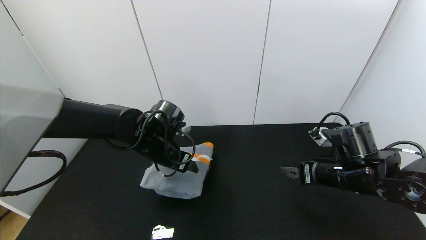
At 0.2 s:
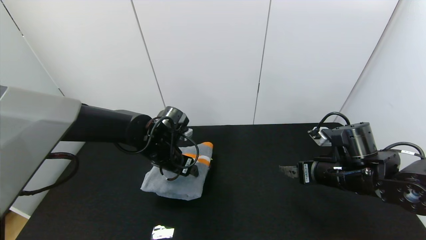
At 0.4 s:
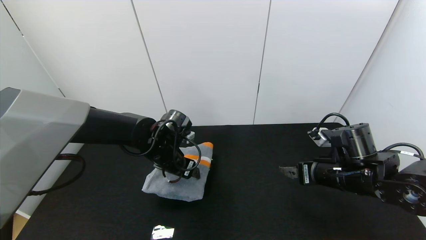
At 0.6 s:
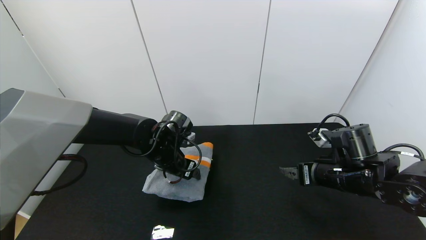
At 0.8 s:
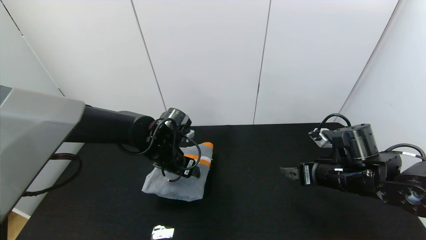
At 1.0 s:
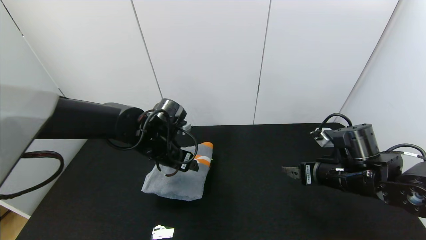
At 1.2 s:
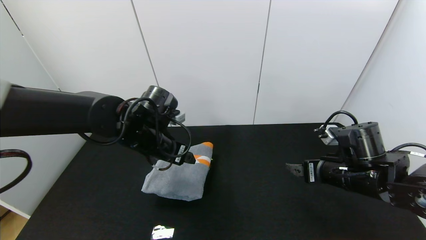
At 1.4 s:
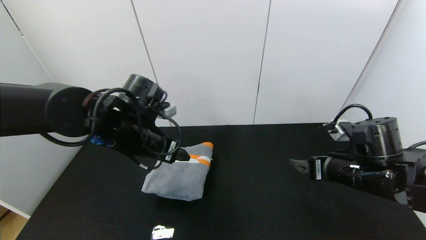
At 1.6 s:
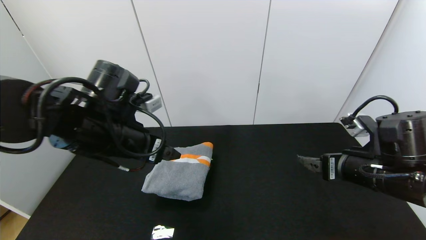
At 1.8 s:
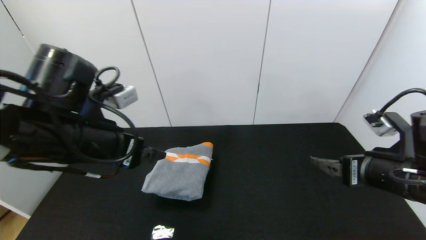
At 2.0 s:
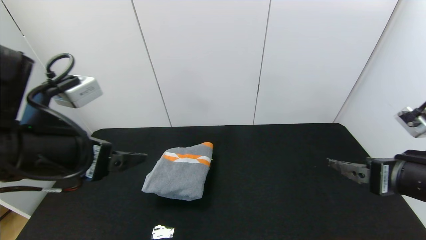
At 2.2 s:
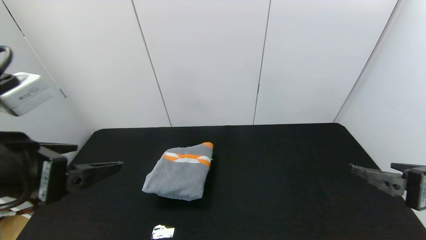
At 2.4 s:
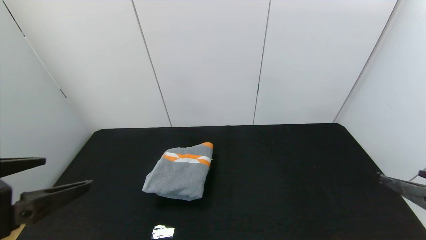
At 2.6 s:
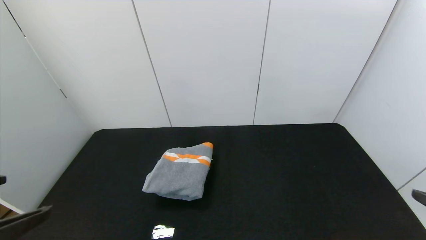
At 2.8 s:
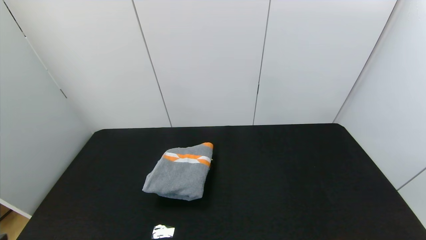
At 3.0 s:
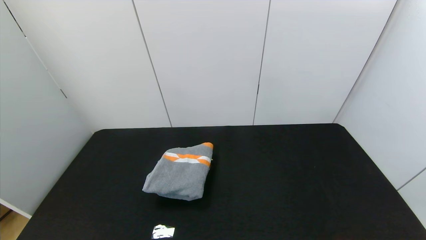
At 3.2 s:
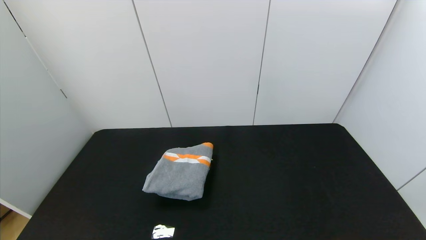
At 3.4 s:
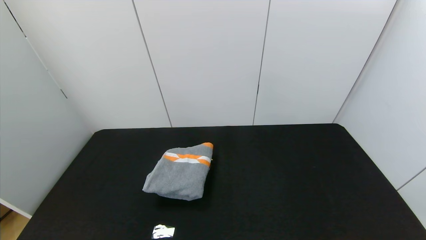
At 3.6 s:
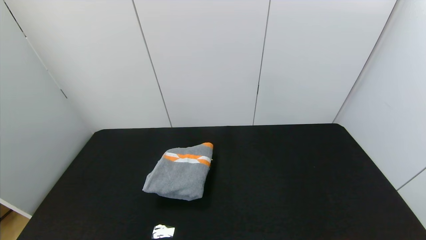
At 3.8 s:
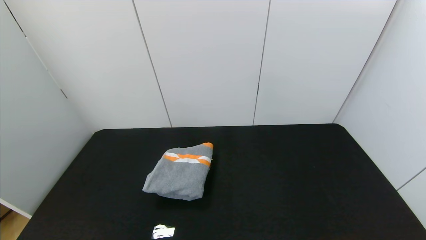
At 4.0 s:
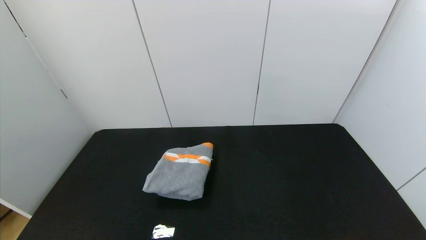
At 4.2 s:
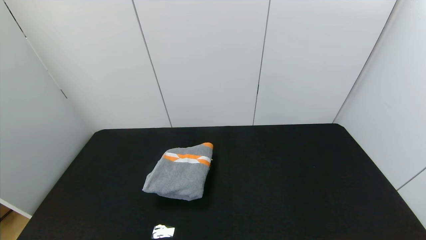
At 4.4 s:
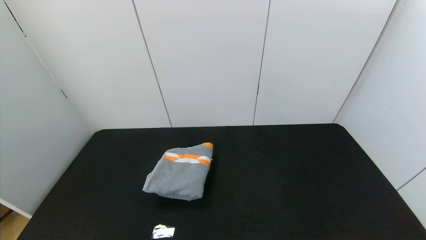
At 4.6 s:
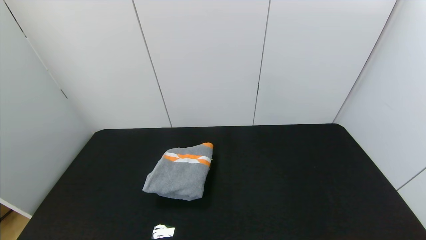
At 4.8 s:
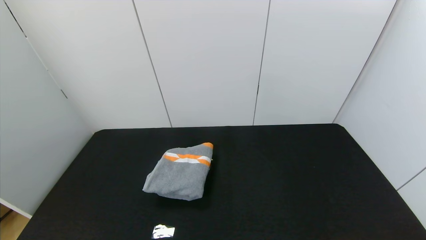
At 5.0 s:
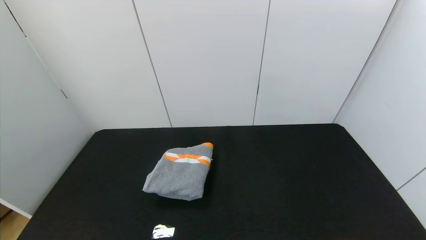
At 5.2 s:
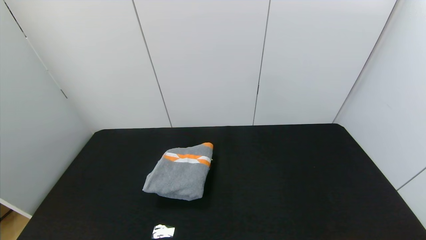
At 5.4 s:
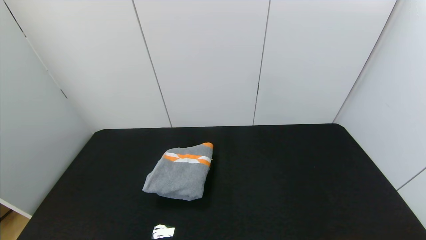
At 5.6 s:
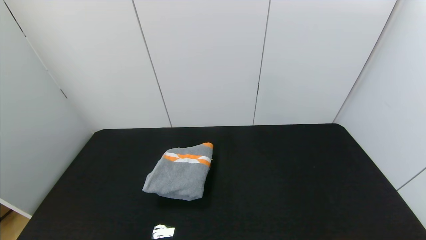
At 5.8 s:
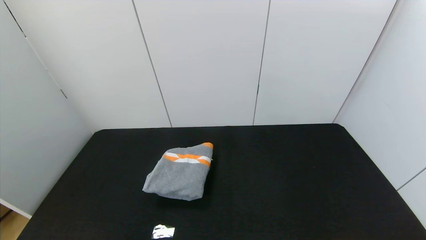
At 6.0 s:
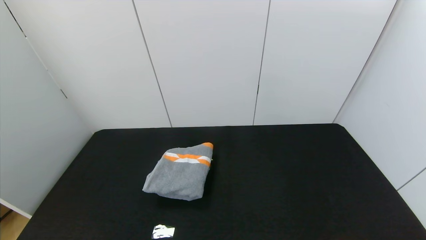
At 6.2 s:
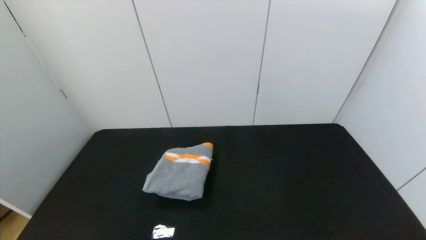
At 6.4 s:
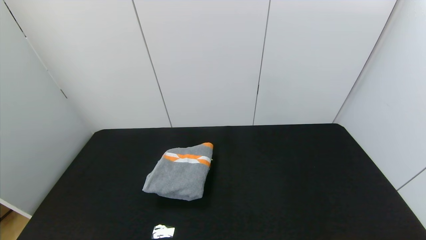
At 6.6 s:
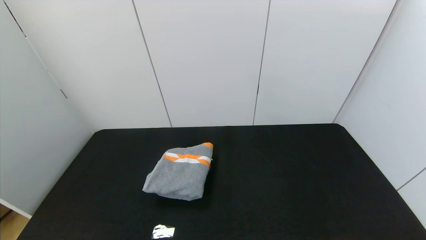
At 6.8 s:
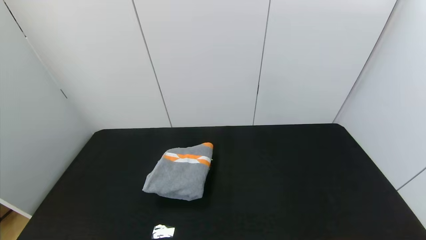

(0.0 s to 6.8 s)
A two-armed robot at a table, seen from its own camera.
Task of the whole recording: Use the gripper to fold the yellow towel and grey towel in half twice,then put the yellow towel on the grey towel.
0.0 s - 1.4 s: The left gripper goes about 10 cm upward and backward.
1.4 s - 2.8 s: The left gripper goes approximately 30 cm backward and to the left, while the right gripper shifts approximately 25 cm backward and to the right.

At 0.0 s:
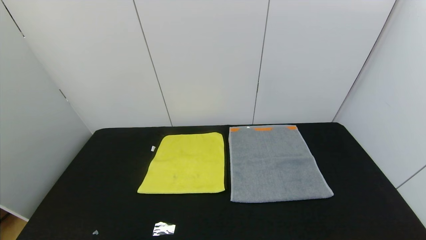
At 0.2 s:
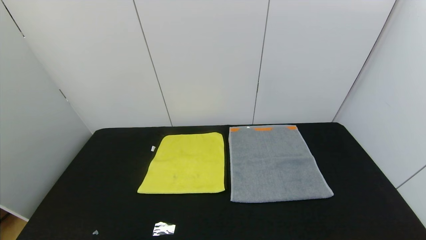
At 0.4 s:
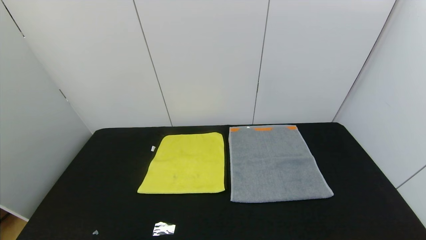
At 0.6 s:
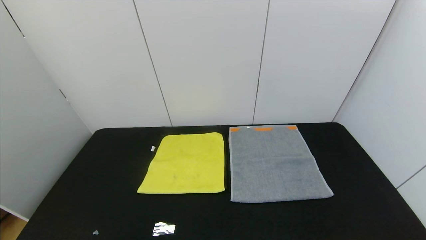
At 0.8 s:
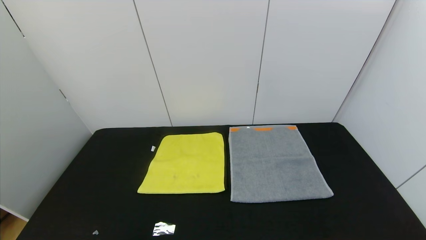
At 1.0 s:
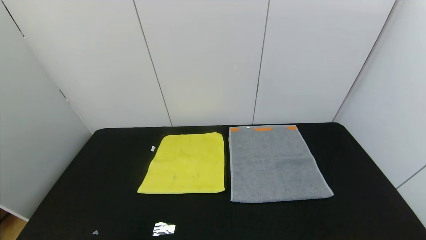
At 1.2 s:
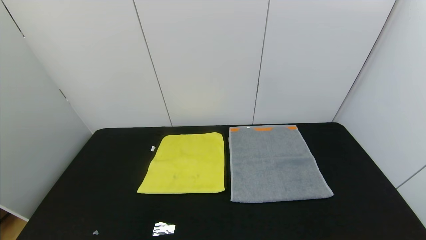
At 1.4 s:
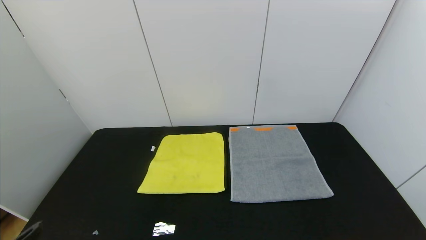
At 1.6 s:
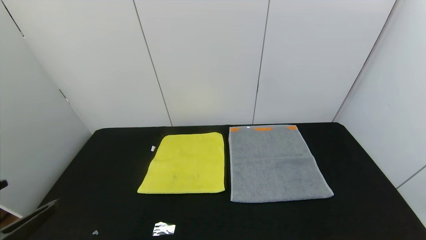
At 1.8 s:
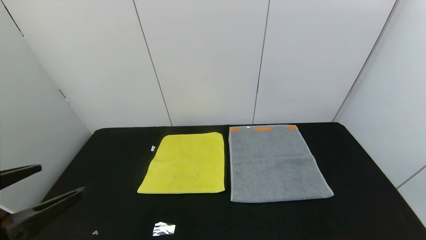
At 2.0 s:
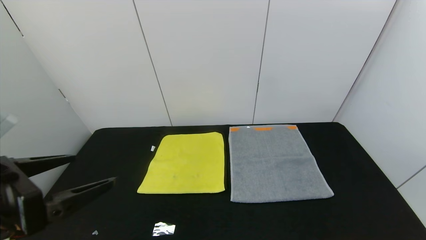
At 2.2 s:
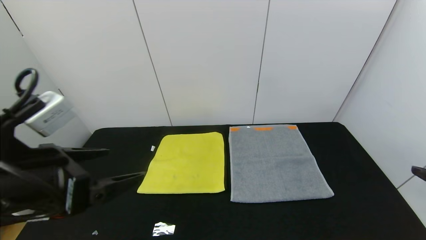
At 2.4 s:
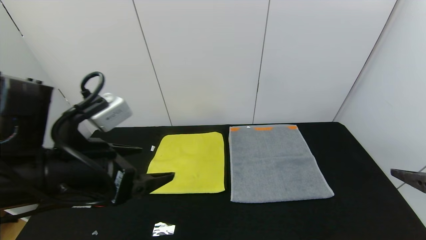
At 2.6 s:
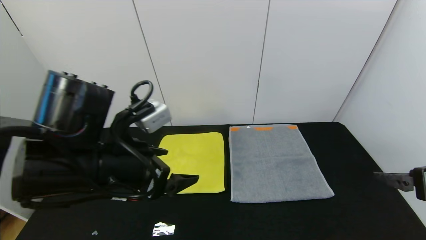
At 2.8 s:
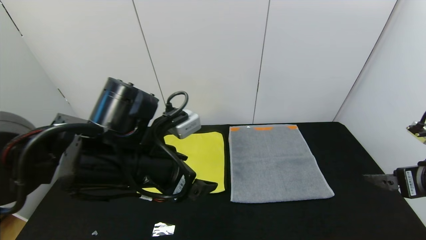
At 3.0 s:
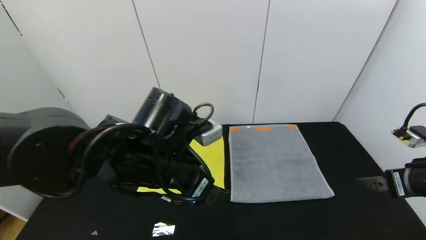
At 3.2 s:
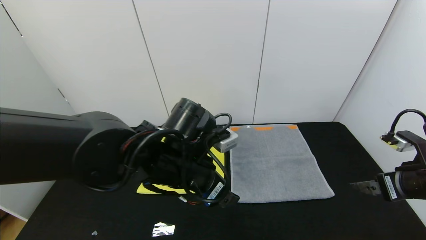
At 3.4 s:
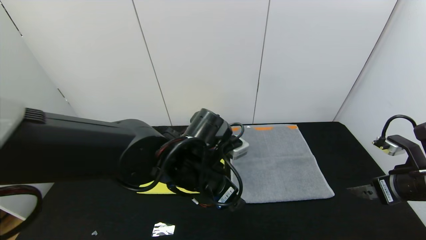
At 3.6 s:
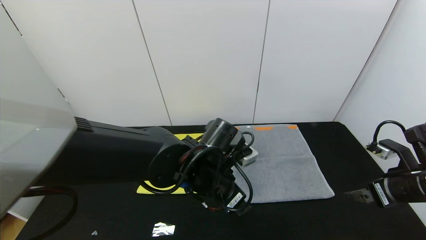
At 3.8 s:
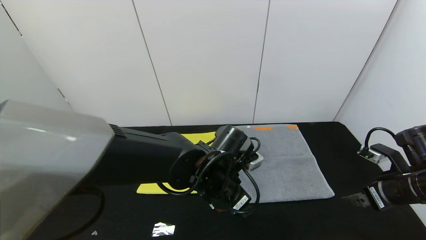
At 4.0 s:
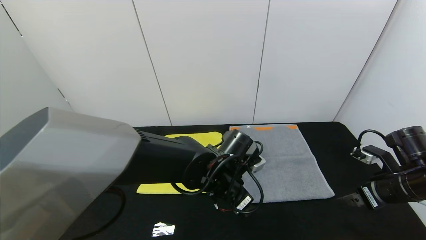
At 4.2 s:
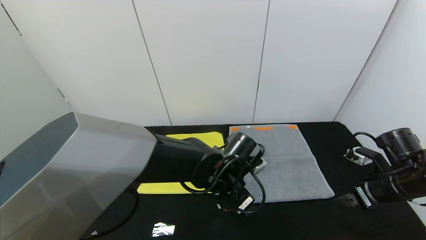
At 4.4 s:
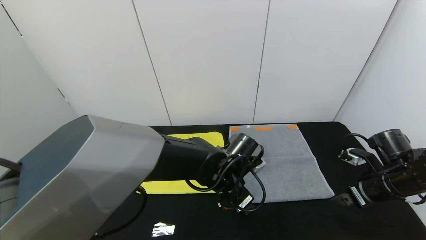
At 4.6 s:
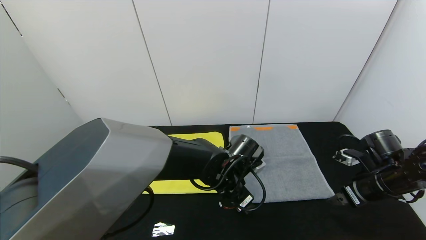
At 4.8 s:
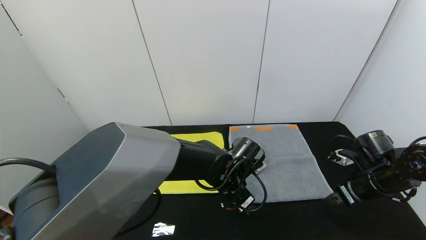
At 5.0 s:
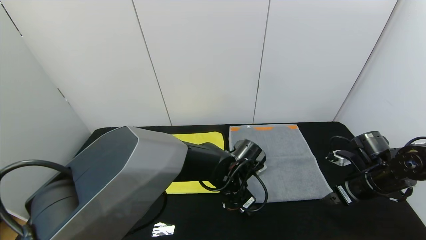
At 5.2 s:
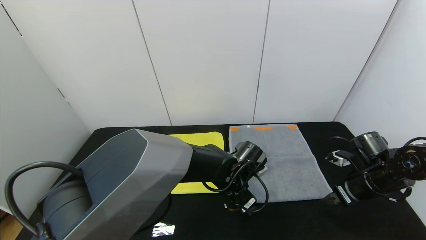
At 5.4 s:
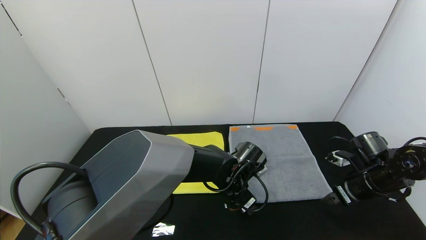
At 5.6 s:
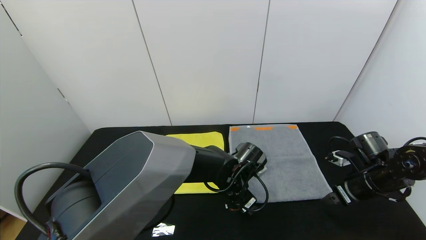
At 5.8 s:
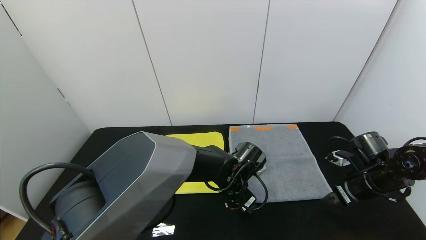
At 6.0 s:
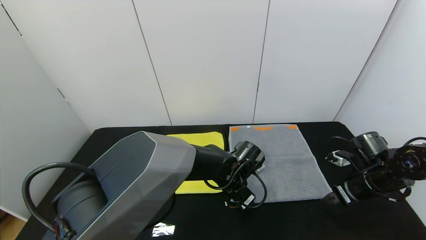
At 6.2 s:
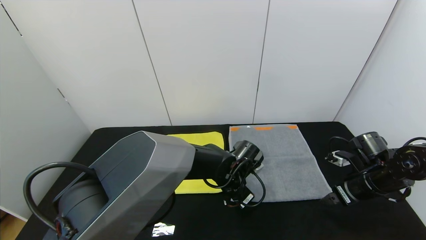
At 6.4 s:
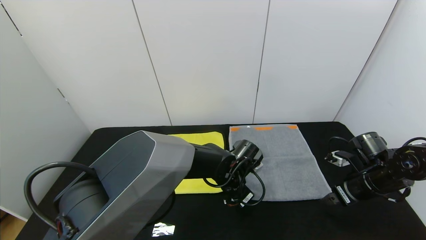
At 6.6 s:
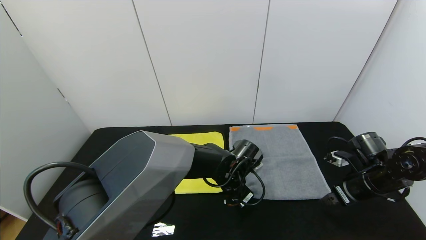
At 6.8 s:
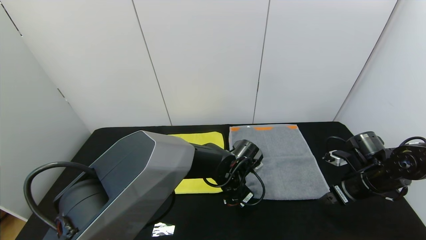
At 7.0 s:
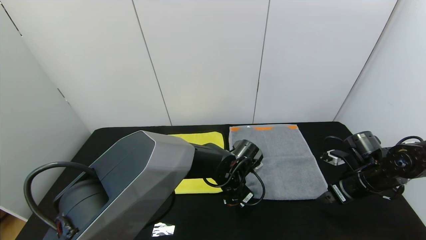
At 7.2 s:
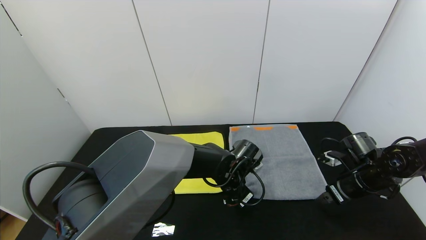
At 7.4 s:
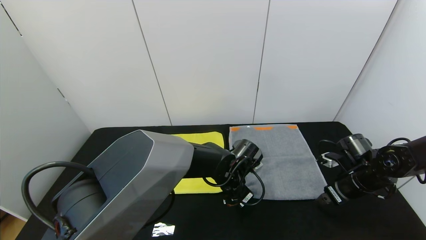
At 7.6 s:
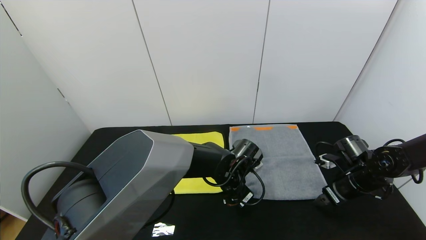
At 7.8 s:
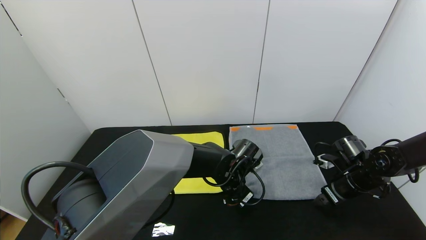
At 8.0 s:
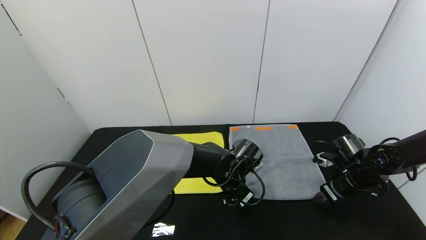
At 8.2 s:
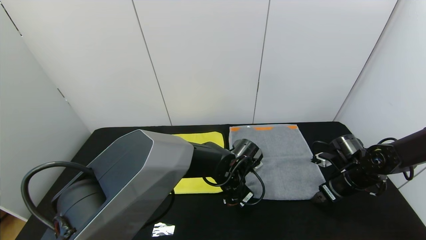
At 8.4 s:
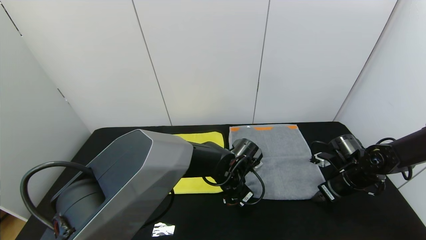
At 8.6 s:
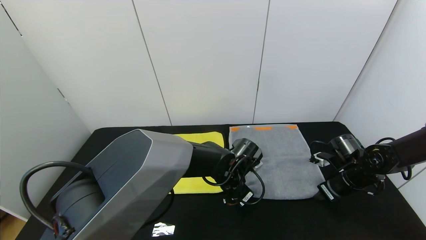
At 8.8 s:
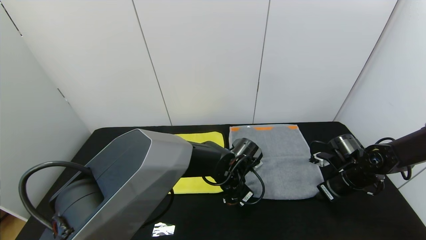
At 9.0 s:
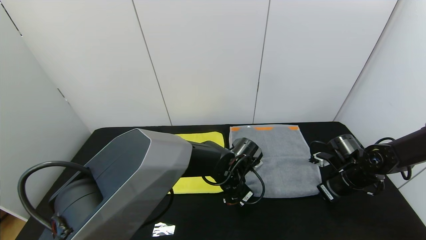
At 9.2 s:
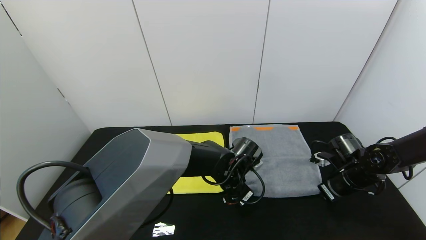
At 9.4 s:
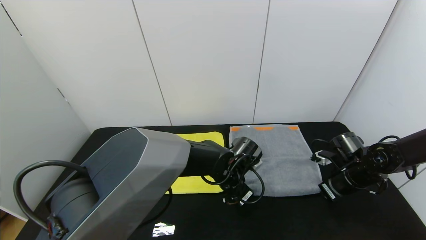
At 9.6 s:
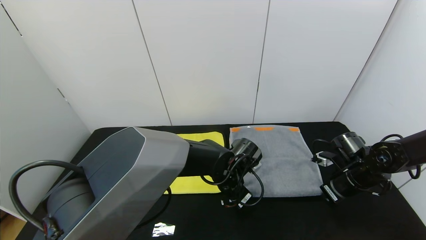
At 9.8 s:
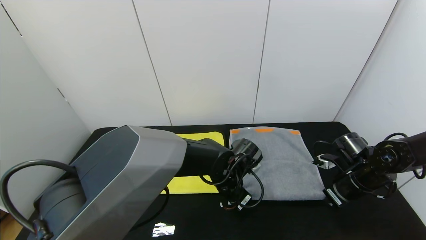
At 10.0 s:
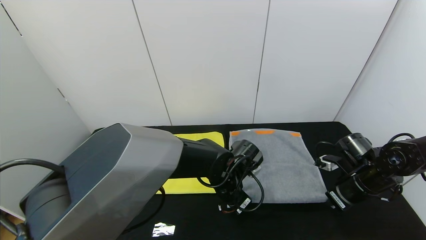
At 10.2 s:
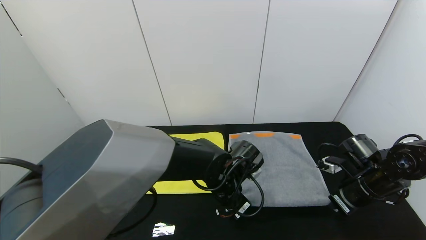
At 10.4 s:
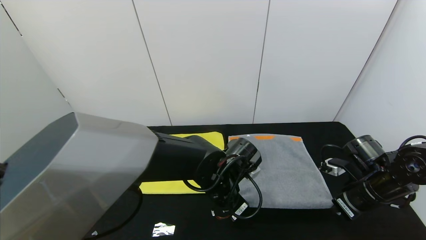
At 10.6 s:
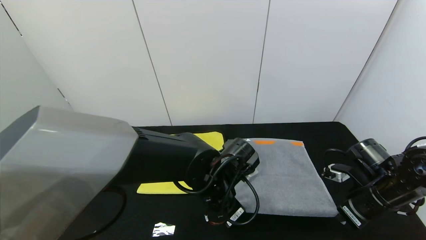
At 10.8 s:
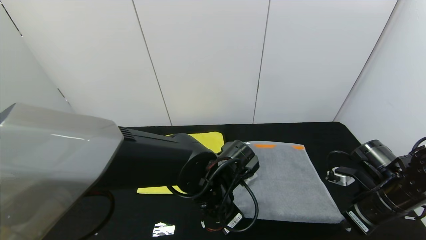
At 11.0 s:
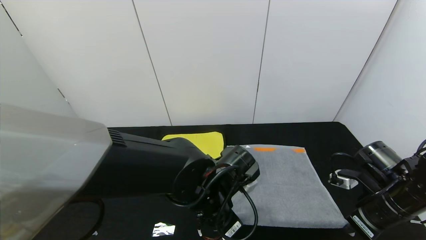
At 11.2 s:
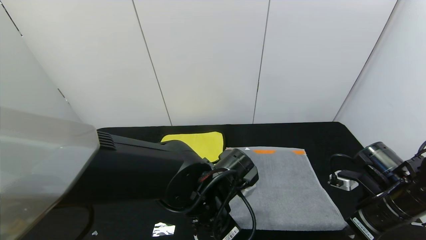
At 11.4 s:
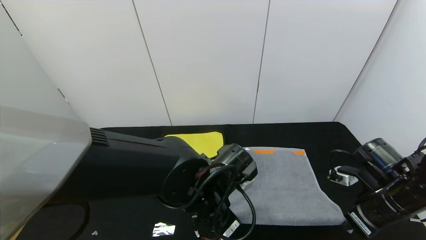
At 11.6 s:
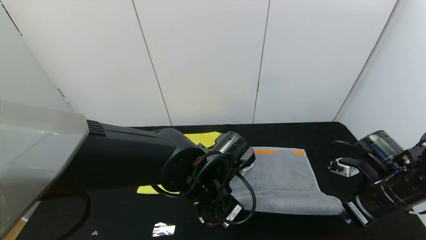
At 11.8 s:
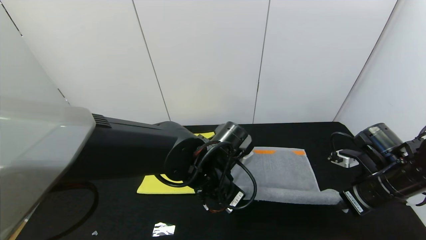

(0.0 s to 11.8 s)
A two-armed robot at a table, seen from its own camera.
Task of the whole recording: Use the gripper to fold the yellow towel and grey towel in half twice,then put the yellow towel on the grey towel.
1.4 s - 3.0 s: The right gripper heads forward, covering some 20 cm, while the left gripper is displaced forward and to the right by about 30 cm.
3.0 s - 4.4 s: The left gripper moves downward, to the right and forward, some 15 cm. The right gripper is displaced downward and forward by approximately 10 cm.
4.4 s - 6.0 s: The left gripper ends up approximately 5 cm from where it was.
6.0 s - 7.4 s: The left gripper closes.
7.4 s - 8.8 s: The right gripper closes.
8.8 s - 10.4 s: Both grippers travel together backward, some 5 cm.
